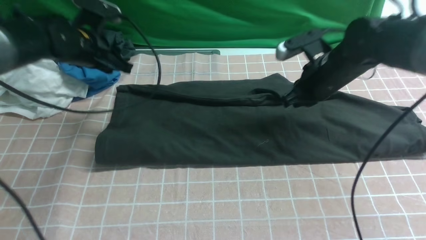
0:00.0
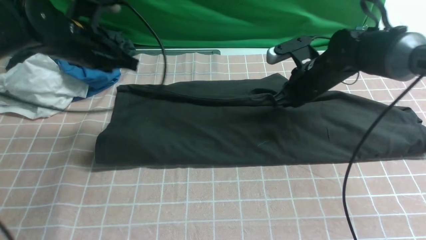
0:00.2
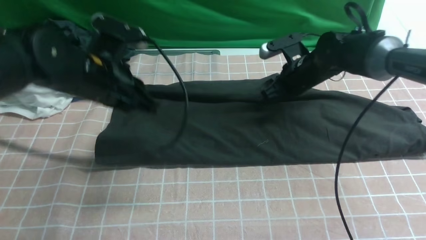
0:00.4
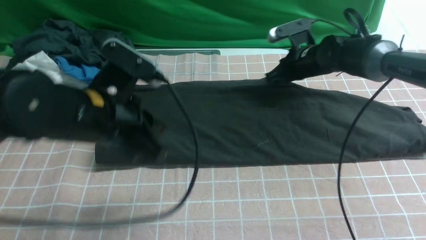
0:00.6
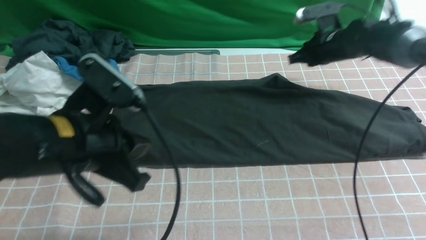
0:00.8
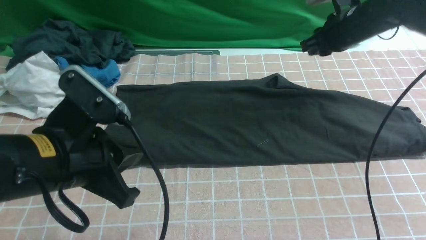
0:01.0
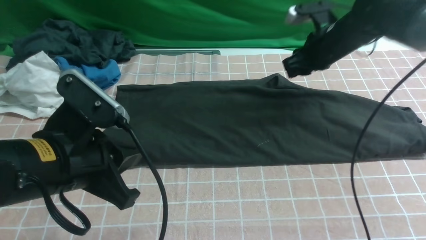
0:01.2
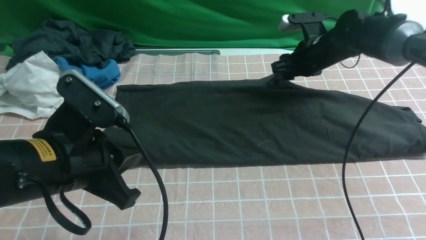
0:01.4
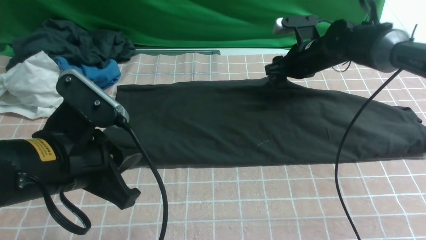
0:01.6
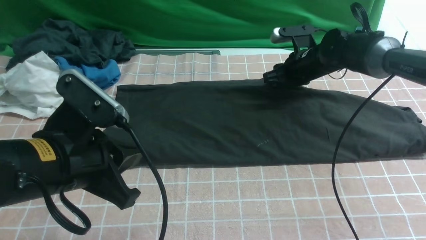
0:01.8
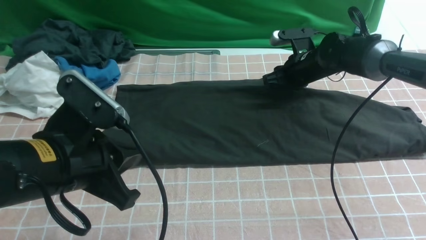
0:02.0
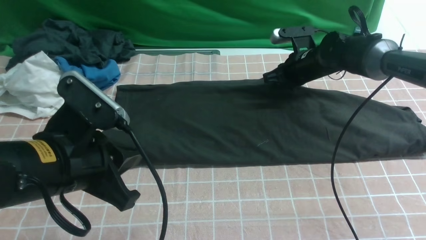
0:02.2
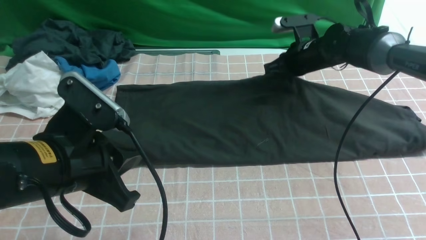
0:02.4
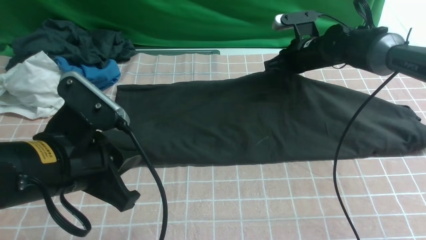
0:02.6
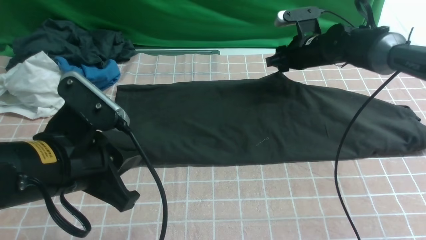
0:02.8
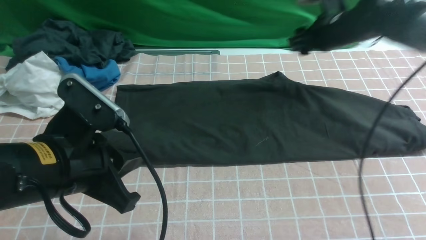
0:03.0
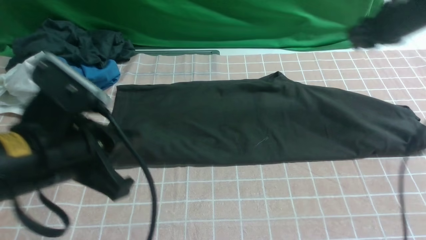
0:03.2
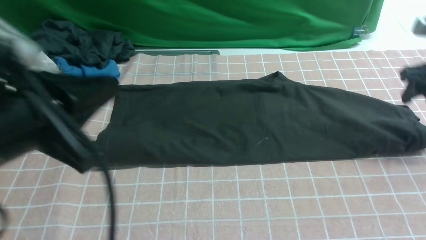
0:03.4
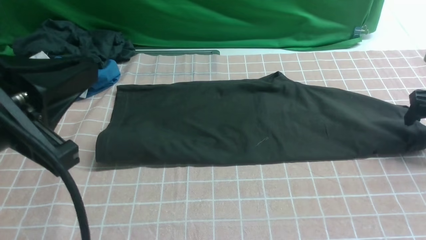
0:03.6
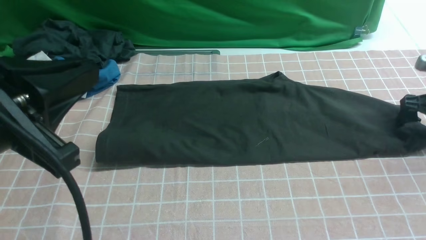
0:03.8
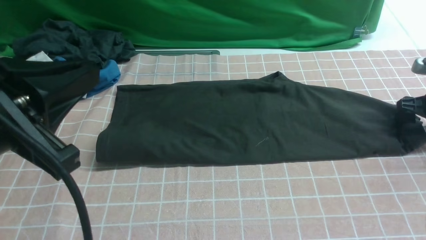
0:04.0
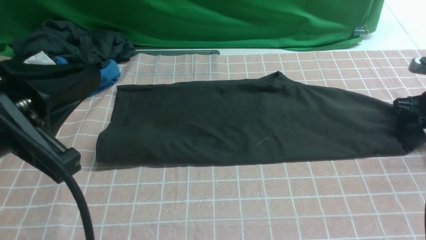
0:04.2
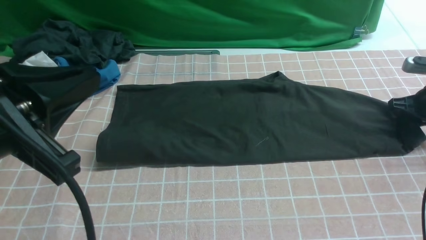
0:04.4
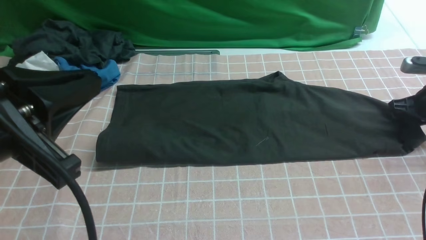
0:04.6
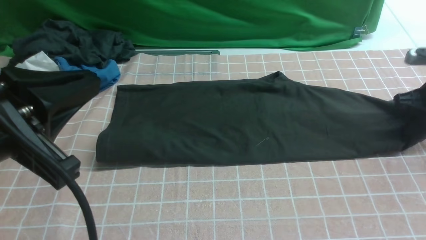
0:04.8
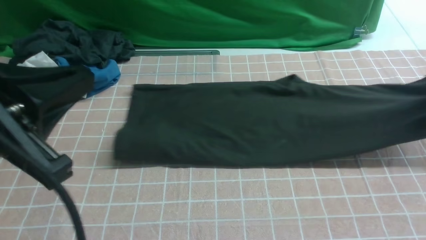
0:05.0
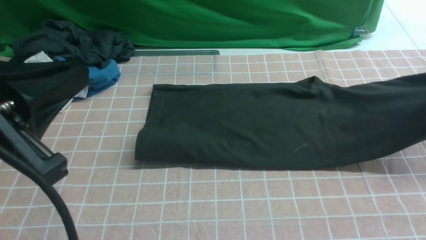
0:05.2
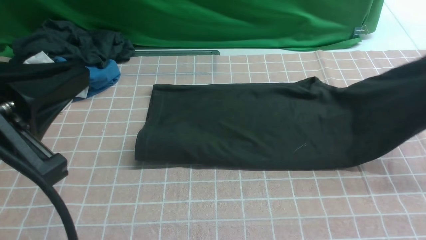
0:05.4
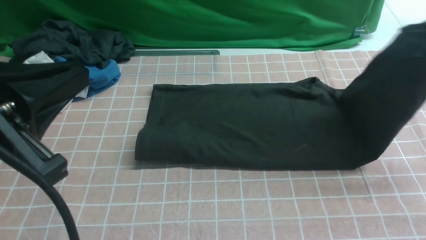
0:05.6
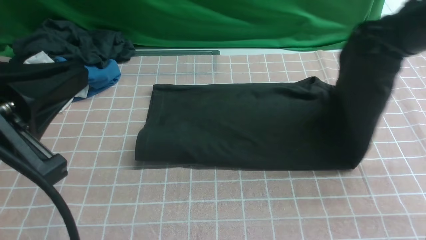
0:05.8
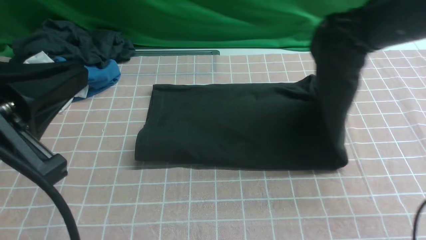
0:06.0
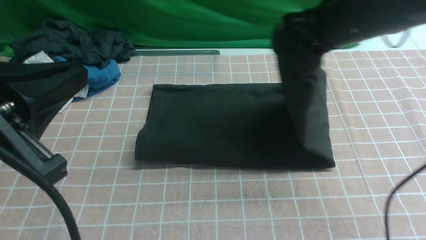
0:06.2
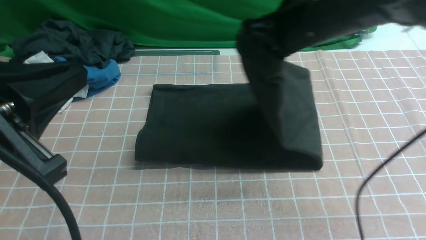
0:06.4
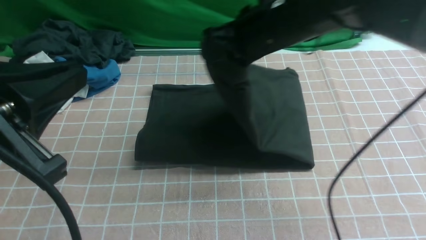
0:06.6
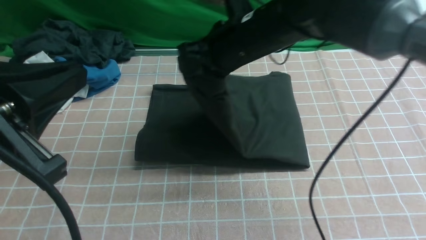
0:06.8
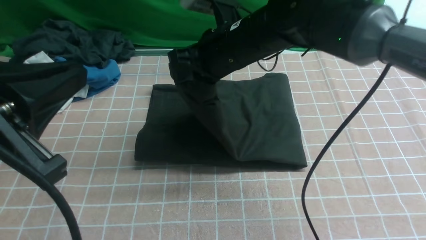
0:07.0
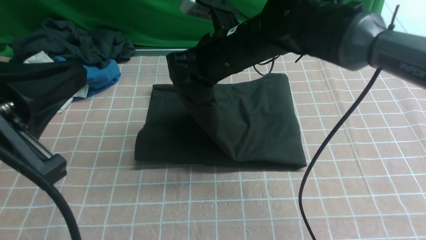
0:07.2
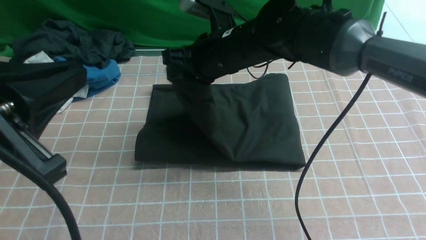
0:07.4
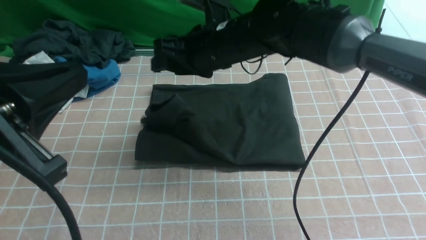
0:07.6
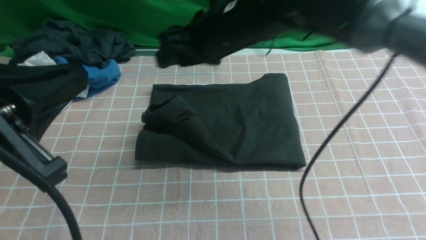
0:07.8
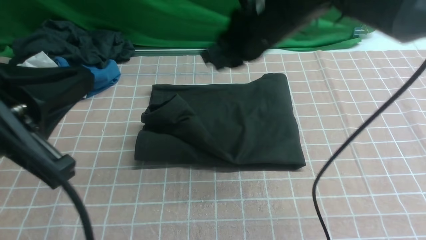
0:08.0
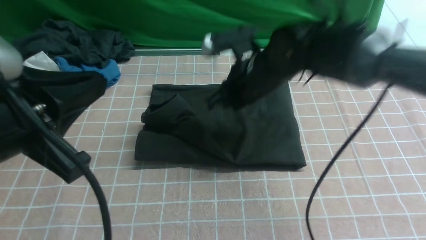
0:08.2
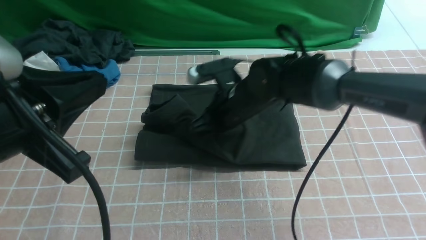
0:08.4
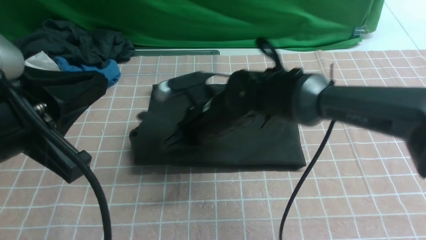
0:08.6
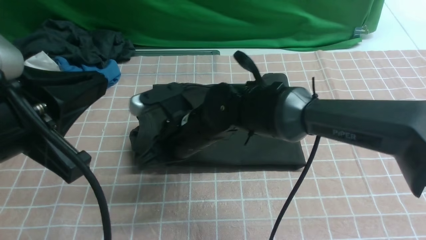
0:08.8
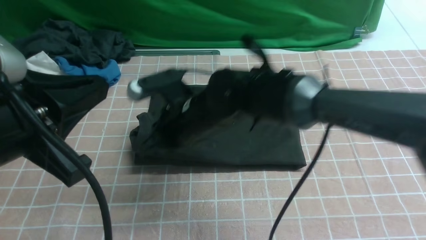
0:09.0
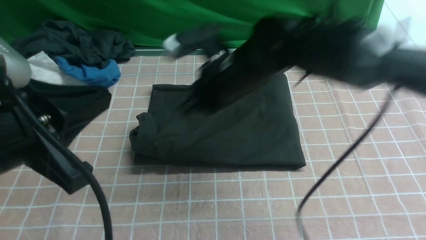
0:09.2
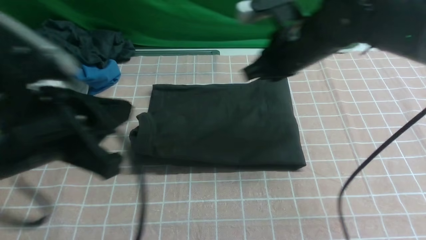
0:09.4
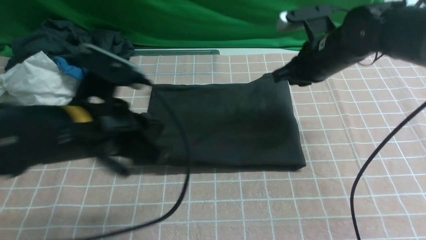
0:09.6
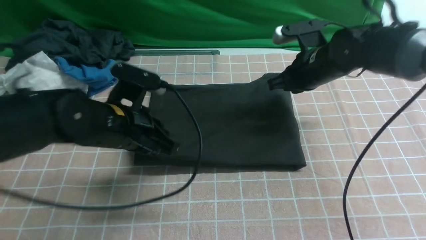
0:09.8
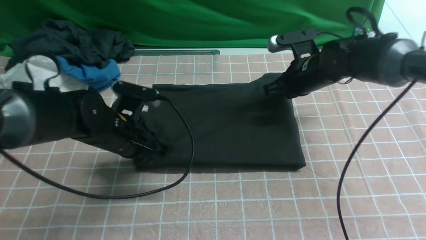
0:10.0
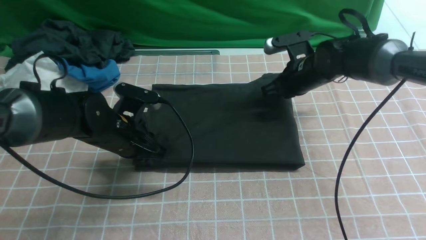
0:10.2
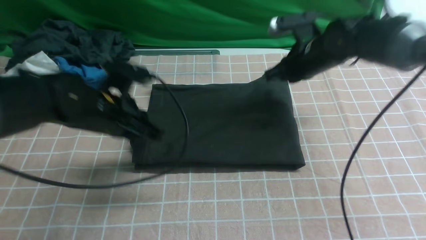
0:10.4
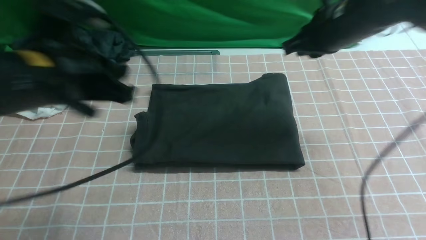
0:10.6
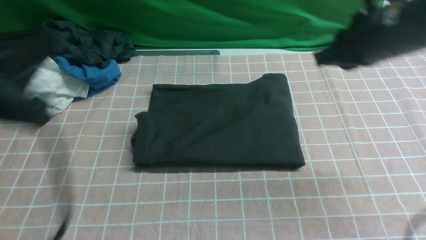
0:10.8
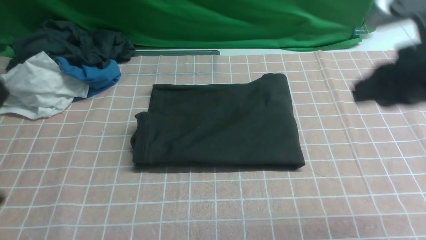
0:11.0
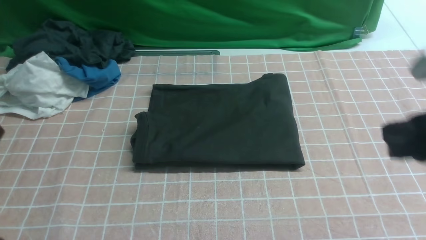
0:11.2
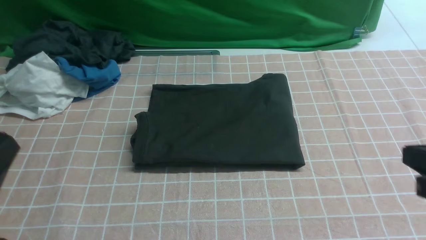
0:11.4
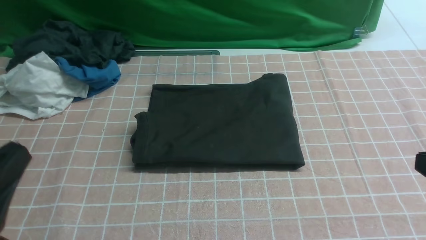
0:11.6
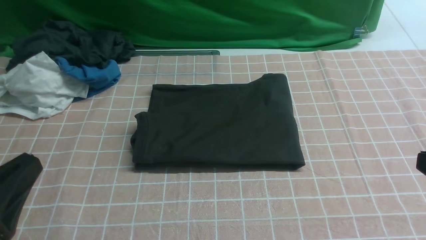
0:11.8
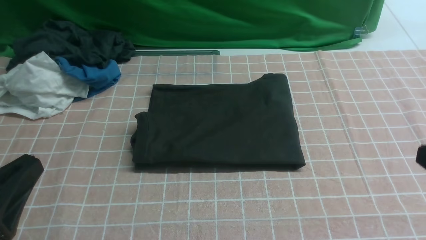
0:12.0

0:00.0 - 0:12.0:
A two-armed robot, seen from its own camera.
Step, 0:01.0 - 0:04.8: use the right arm to clamp the right edge of the fabric.
Step, 0:05.0 - 0:08.8: use the right arm to drag the right edge of the fabric to the left and folds it over the left edge.
0:00.0 - 0:01.6: The right gripper heads forward, covering roughly 5 cm, and opens its fingers. Meanwhile the left gripper heads backward, covering roughly 25 cm, and closes its fingers.
0:01.6 - 0:03.0: The right gripper travels upward and to the right by some 10 cm, and closes, then reopens.
0:03.0 - 0:04.4: The right gripper shifts about 20 cm to the right, downward and backward, while the left gripper moves upward, approximately 10 cm.
0:04.4 - 0:06.0: The right gripper shifts roughly 25 cm to the left and upward.
0:06.0 - 0:07.6: The right gripper heads to the left, covering approximately 20 cm, and opens.
0:07.6 - 0:09.0: The right gripper heads downward and backward, covering approximately 10 cm, and closes.
0:09.0 - 0:10.4: The right gripper shifts approximately 20 cm to the right and forward; the left gripper shifts approximately 20 cm forward and downward.
0:10.4 - 0:12.0: The grippers both shift backward by approximately 30 cm.

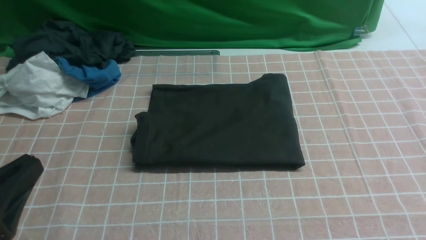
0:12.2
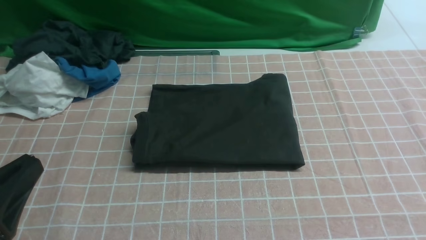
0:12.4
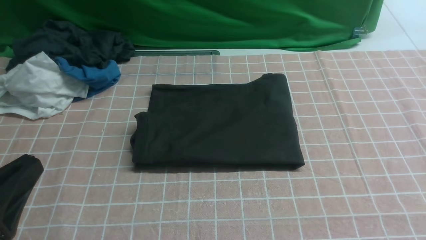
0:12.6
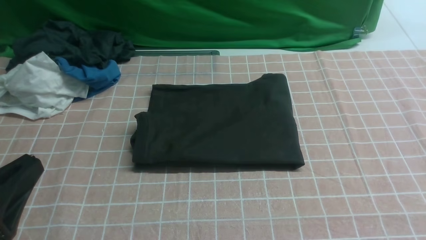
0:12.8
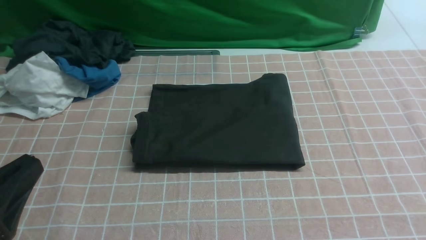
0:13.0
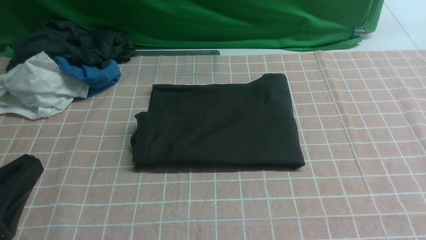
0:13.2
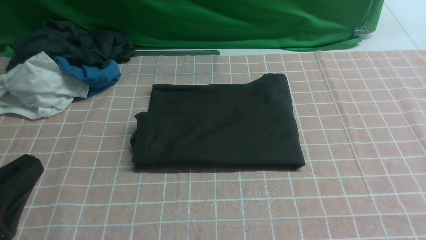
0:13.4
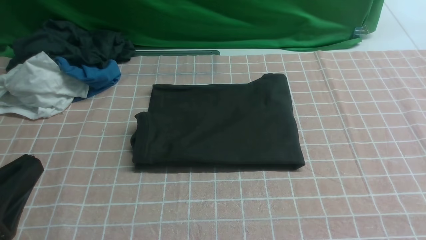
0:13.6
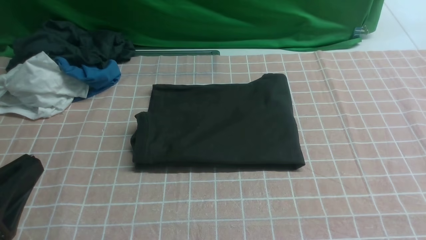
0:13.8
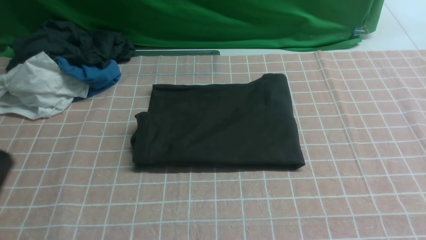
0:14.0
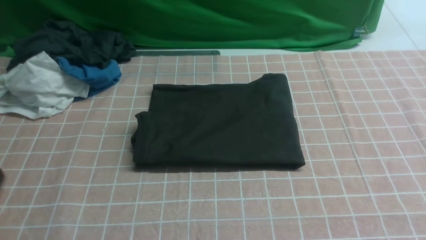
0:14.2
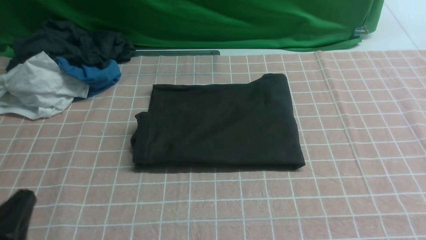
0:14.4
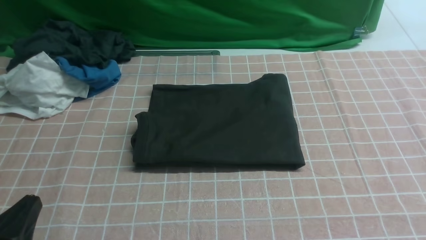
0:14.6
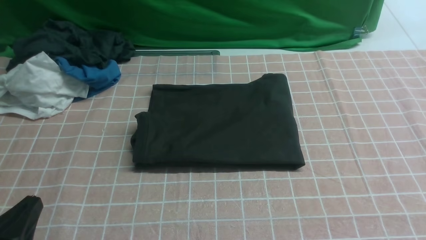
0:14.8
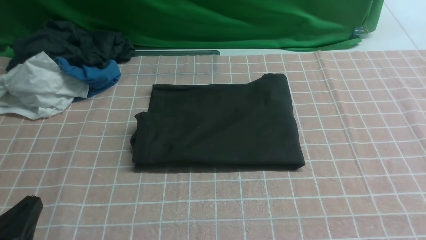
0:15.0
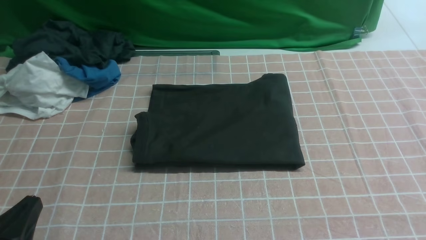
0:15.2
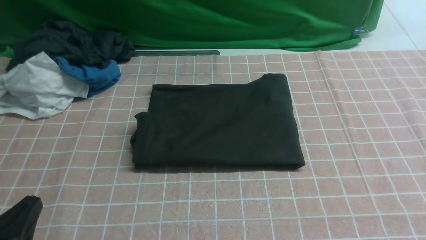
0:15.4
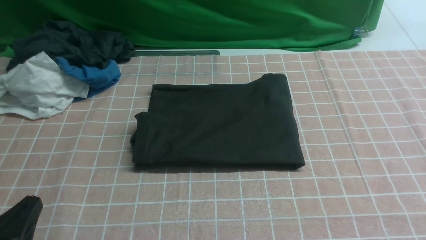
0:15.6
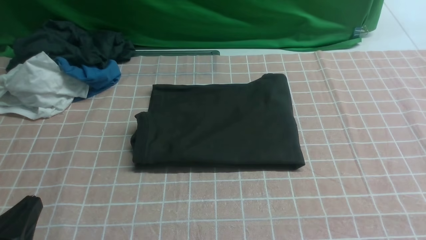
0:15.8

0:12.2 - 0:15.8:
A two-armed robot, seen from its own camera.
0:14.0 - 0:15.8: The left gripper travels downward by some 5 cm.
